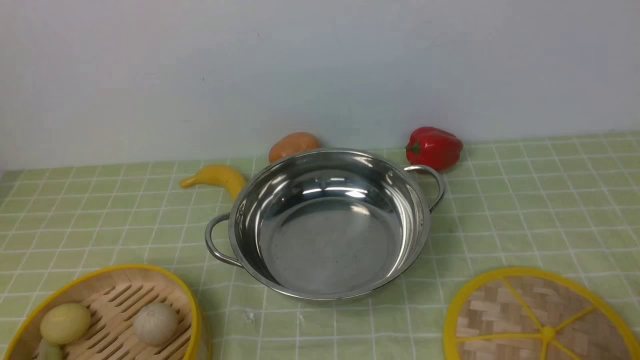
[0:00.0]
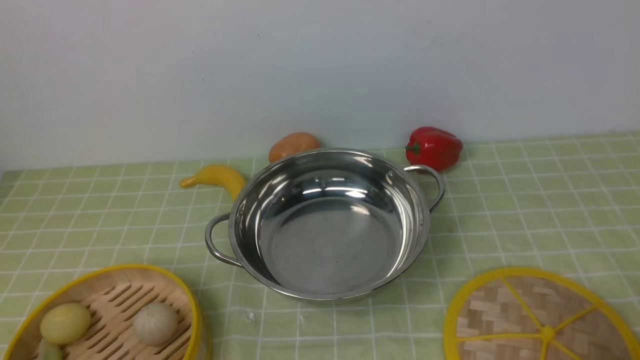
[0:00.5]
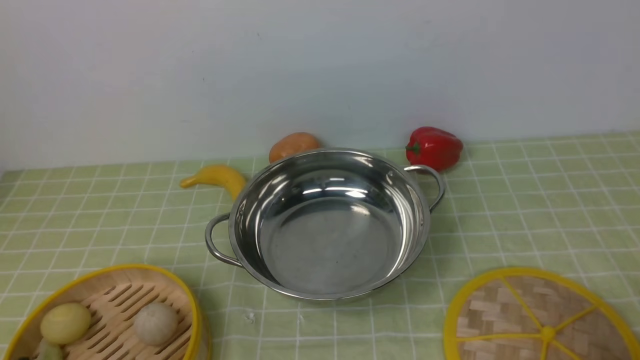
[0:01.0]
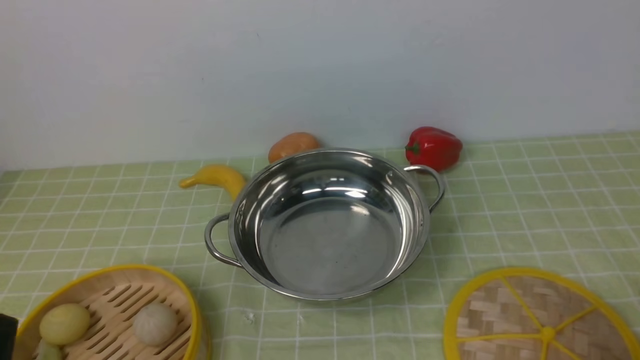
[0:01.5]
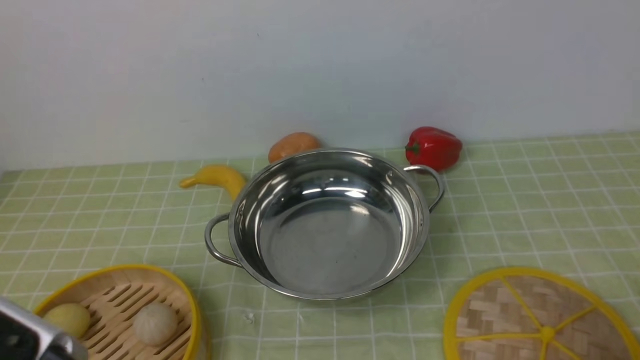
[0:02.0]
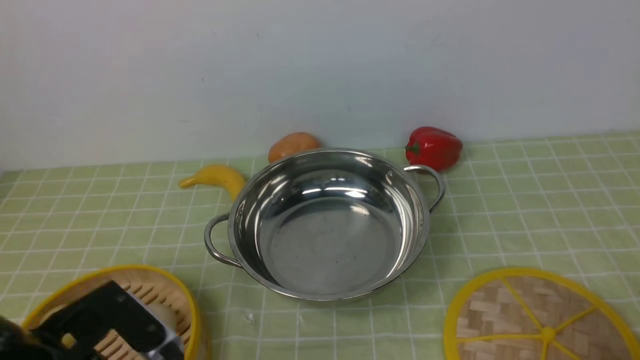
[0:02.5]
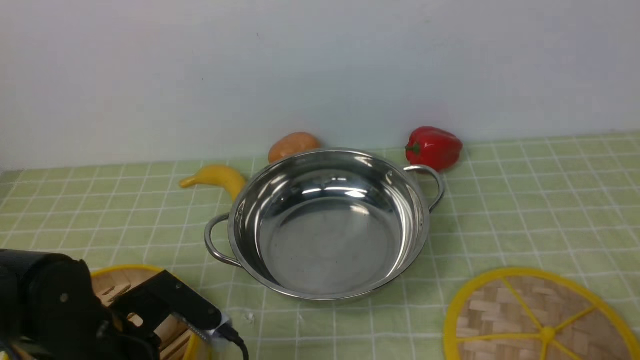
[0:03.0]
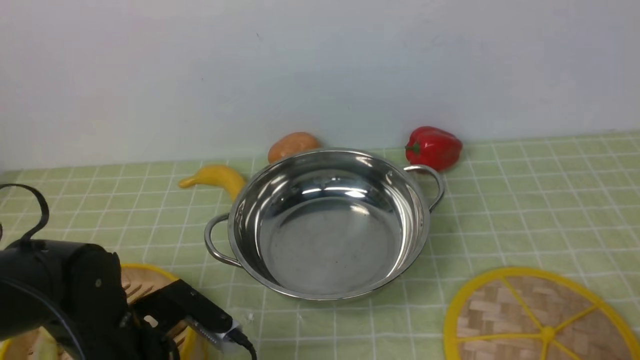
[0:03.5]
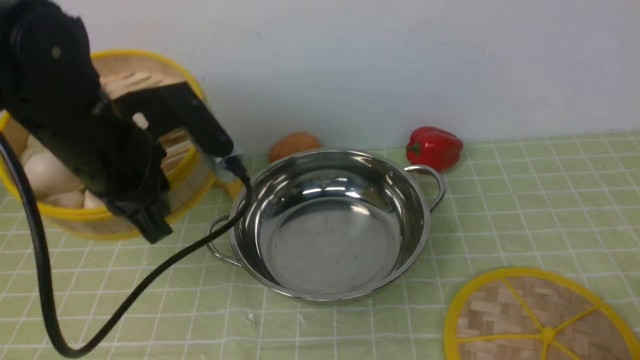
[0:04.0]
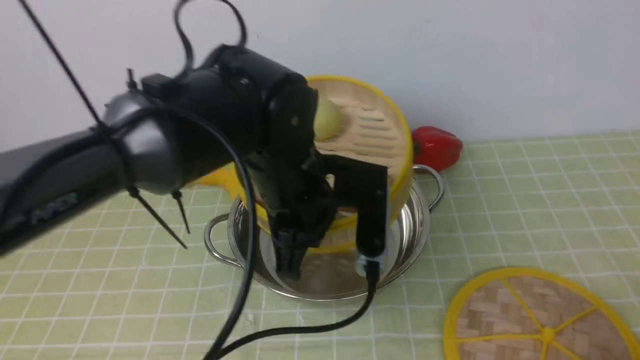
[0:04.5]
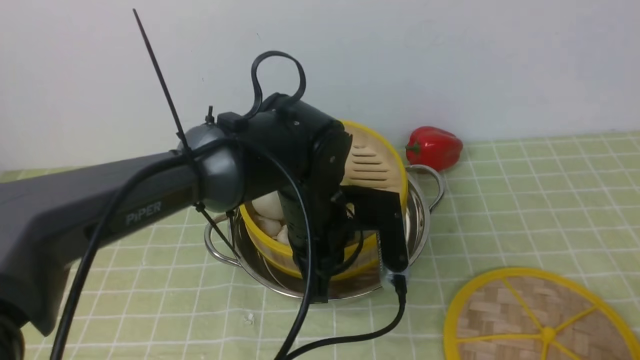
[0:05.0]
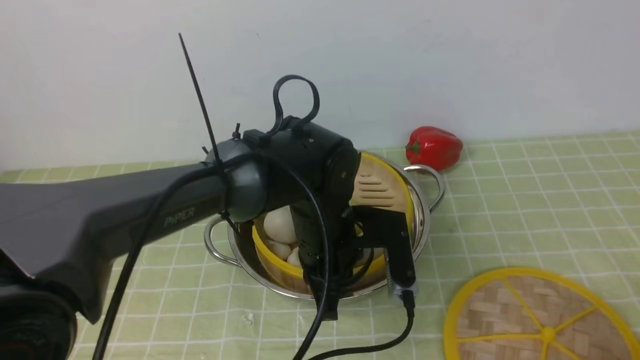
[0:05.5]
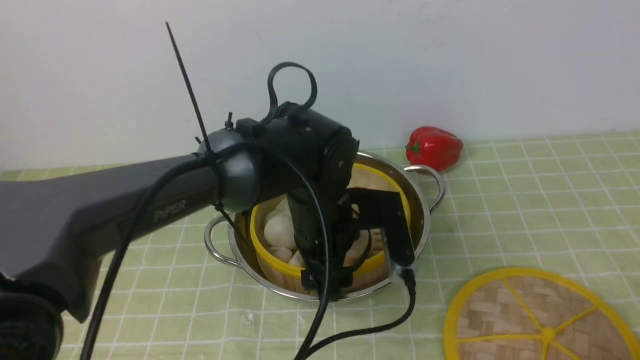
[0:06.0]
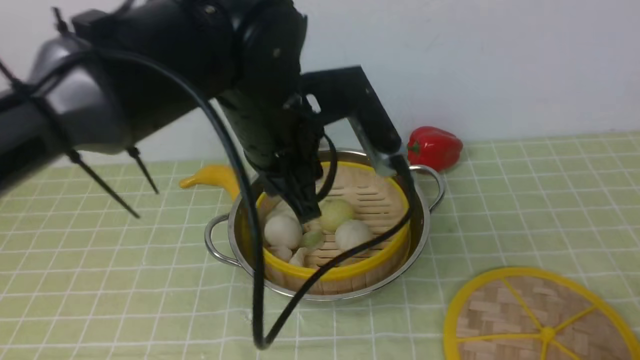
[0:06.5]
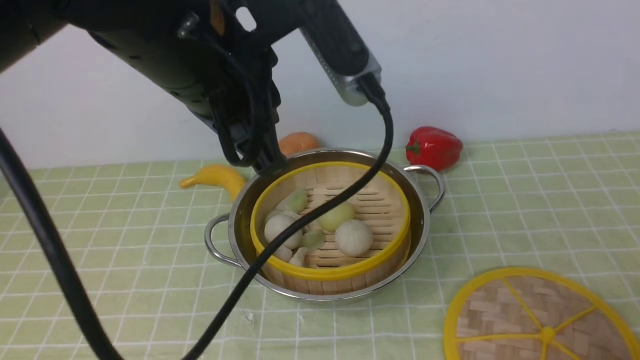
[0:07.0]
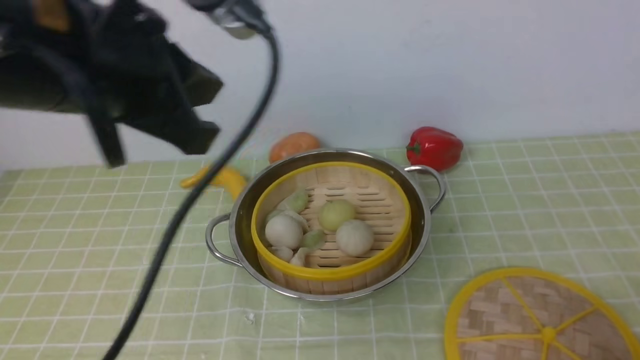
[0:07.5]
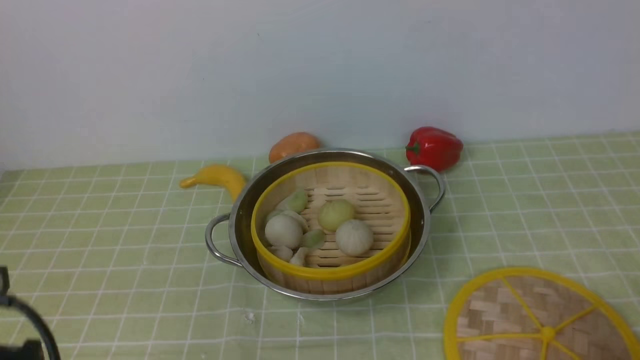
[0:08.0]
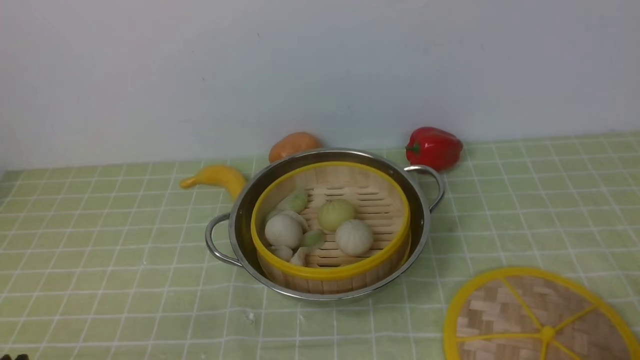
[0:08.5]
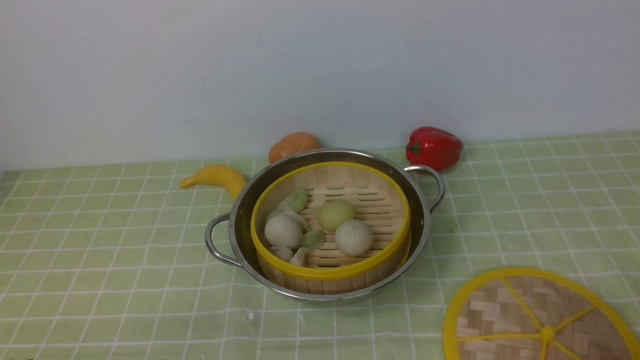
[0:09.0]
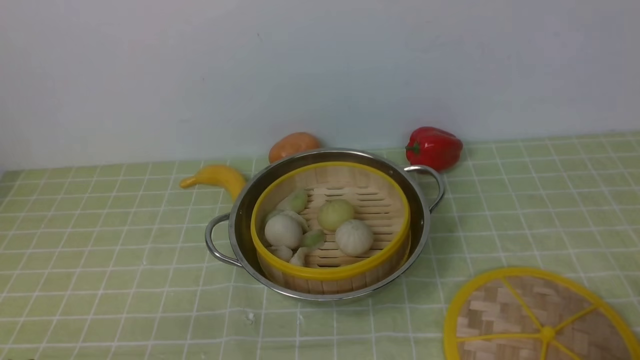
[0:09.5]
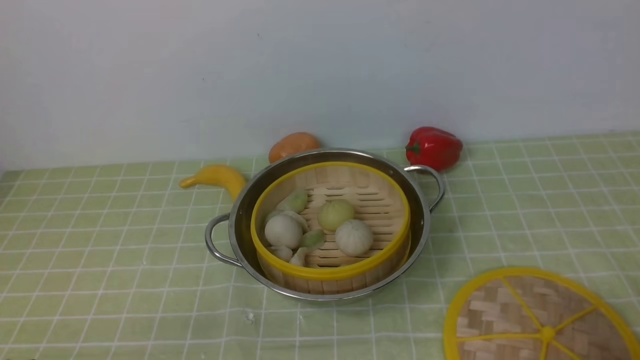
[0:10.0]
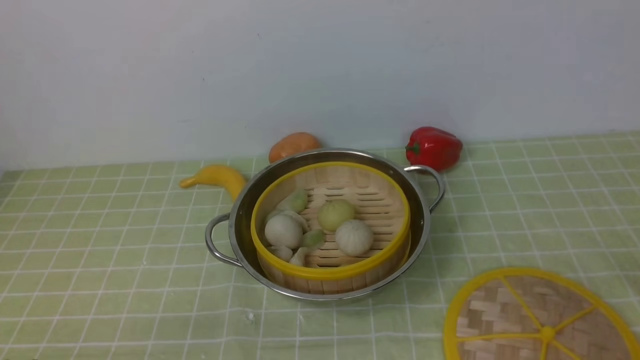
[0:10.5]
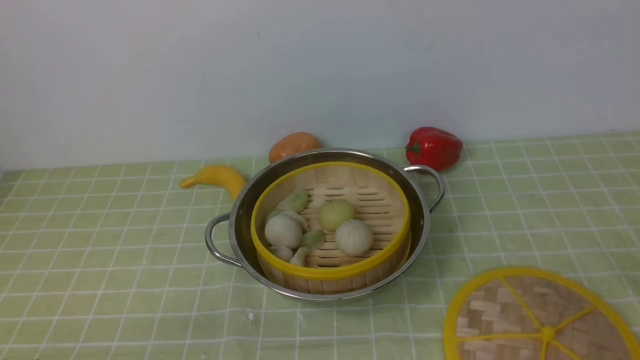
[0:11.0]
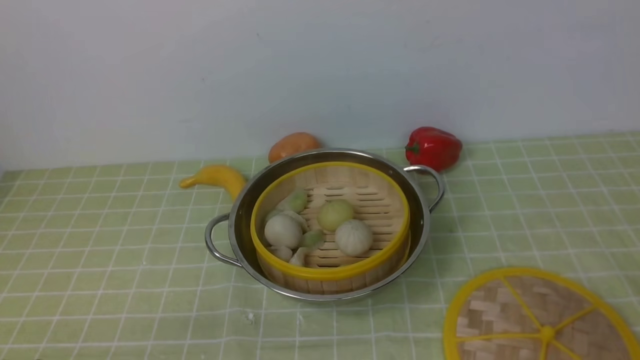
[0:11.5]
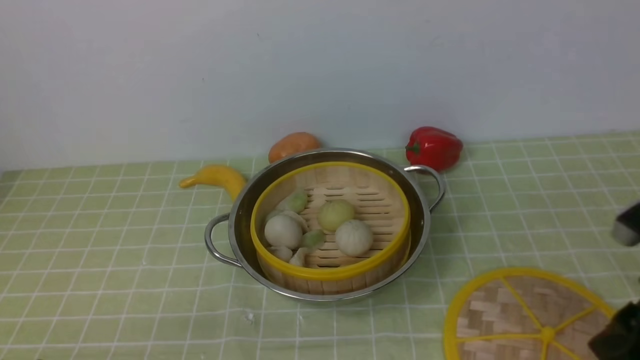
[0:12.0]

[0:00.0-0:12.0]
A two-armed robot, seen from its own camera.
Task of the whole recording: place the steamer in the pot on the green tablecloth, and put the lid on the steamer.
Step, 0:00.0 to 0:04.0: use the left arm to lift the steamer closest to it.
Step, 0:04.5 to 0:06.5: use the left arm to put the steamer into the iron steamer pot in the middle.
0:00.0 to 0:02.0: The left gripper travels upward by approximately 10 cm.
0:02.0 to 0:04.0: The left gripper is displaced forward by approximately 20 cm, and closes its fingers.
0:04.0 to 0:06.0: The left gripper goes some 15 cm to the right and downward, and opens.
0:06.0 to 0:08.0: The left gripper shifts approximately 35 cm to the left and backward, and closes up.
0:08.0 to 0:10.0: The left gripper shifts approximately 10 cm downward.
0:10.0 to 0:12.0: The right gripper travels forward and upward by some 15 cm.

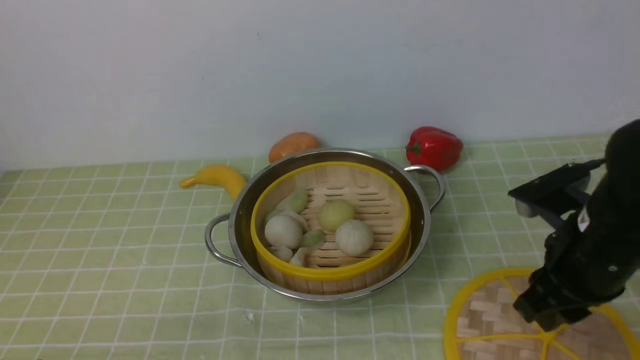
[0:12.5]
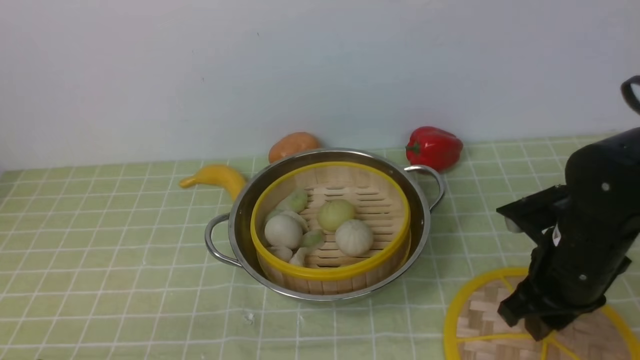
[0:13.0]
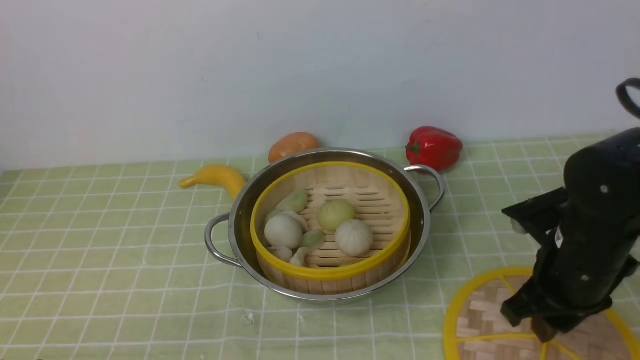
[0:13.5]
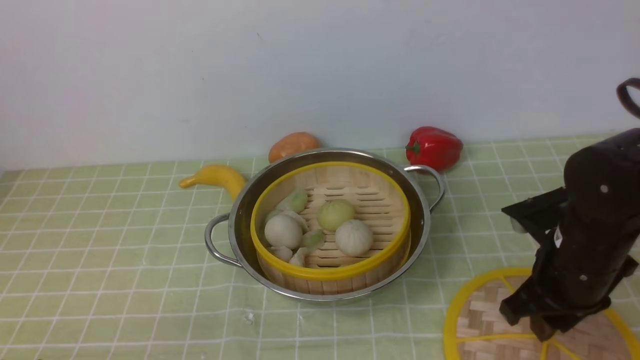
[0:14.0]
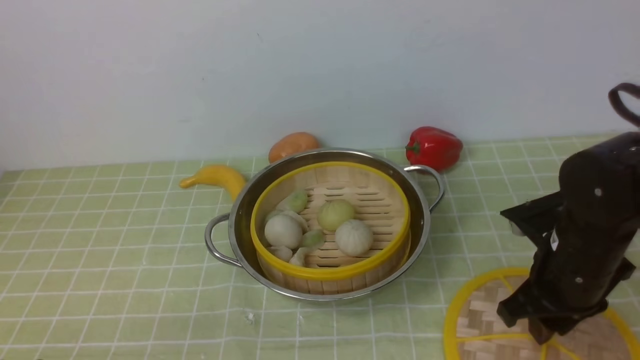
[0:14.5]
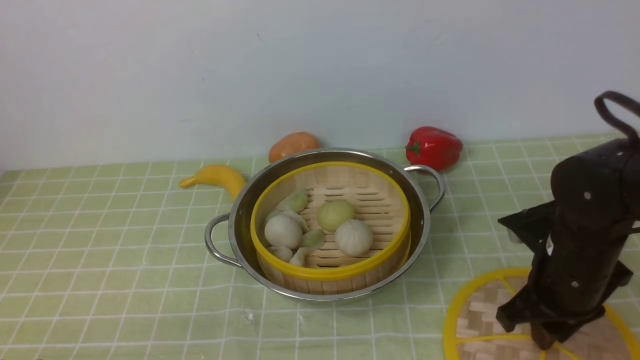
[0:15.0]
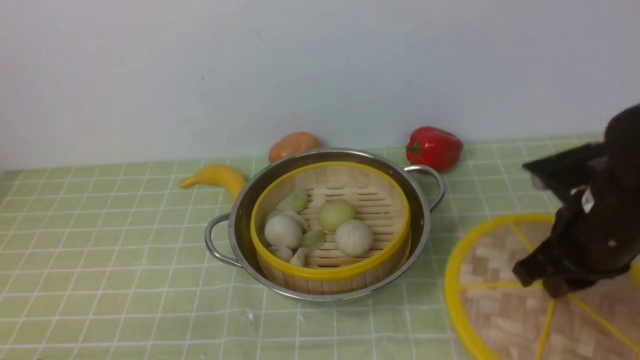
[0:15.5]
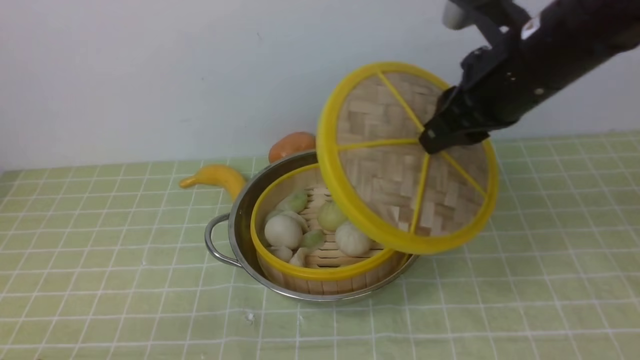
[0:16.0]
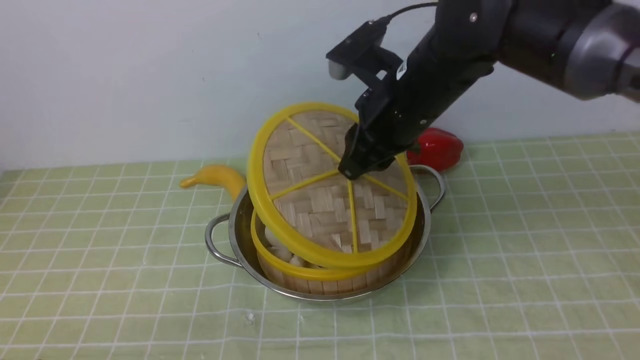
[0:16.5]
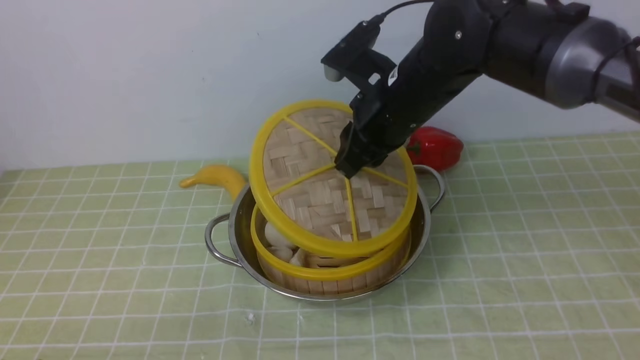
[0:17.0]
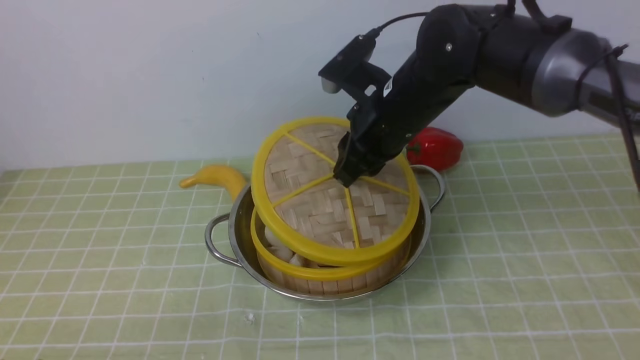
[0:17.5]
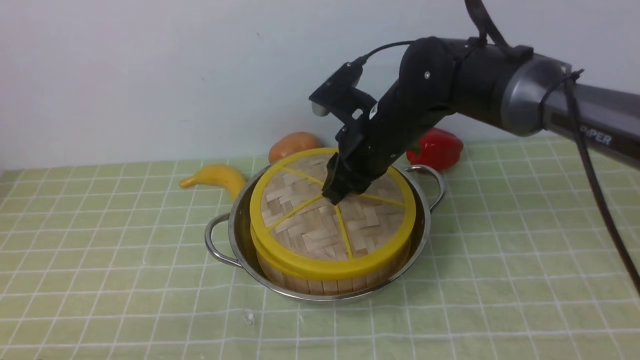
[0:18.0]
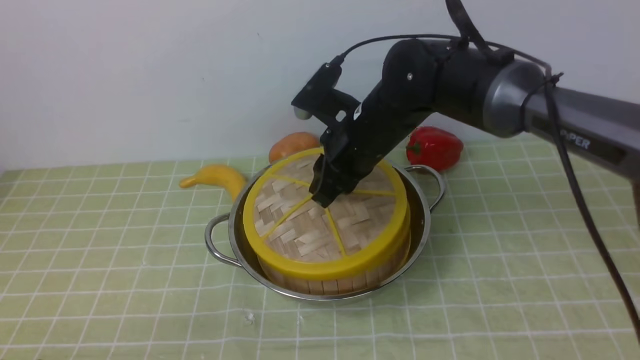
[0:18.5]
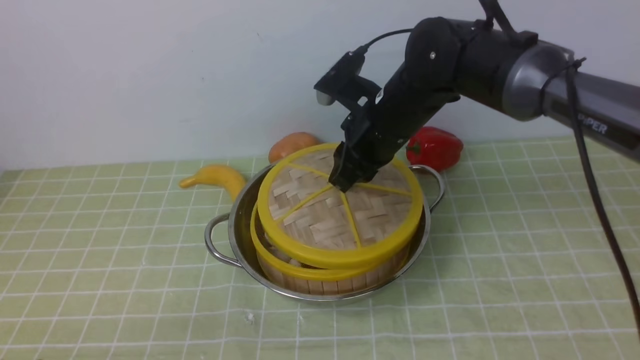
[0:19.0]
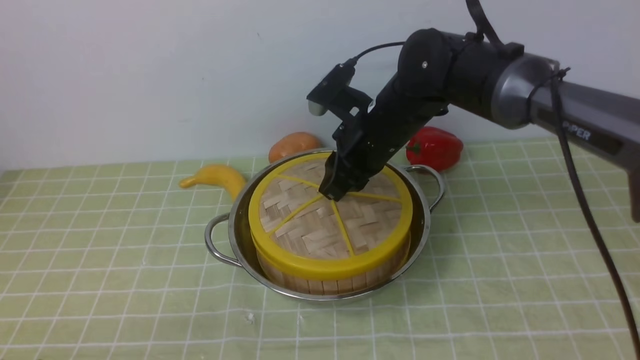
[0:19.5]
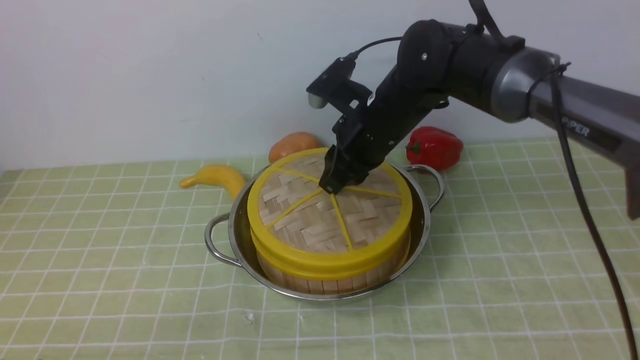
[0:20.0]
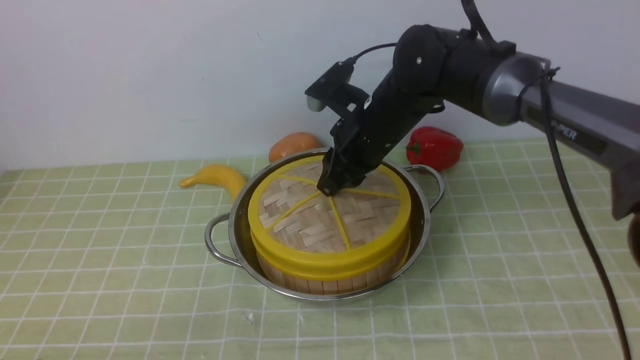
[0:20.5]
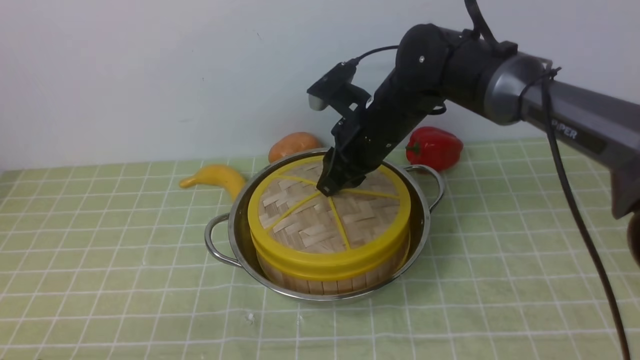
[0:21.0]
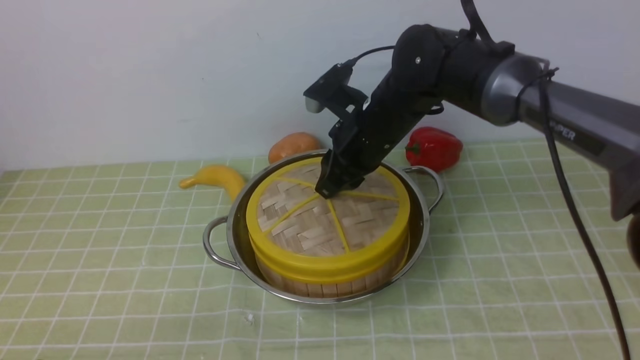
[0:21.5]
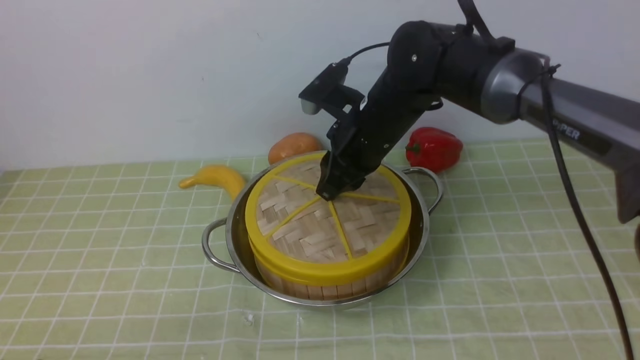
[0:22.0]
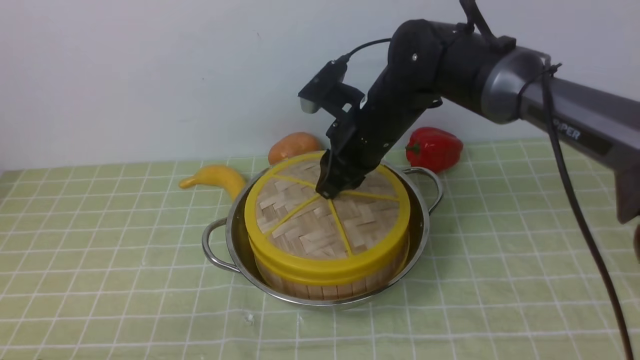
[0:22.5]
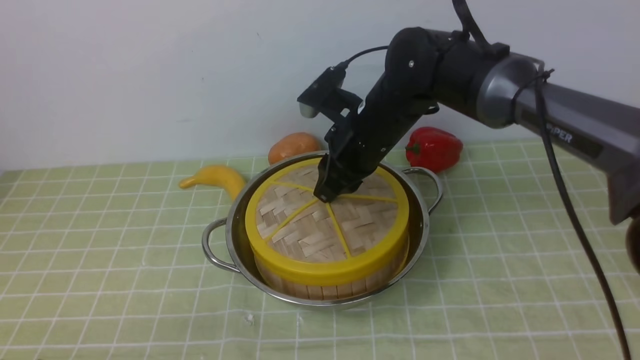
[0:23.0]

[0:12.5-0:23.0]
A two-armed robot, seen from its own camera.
Task of the whole recording: place the steamer in the pot on the green tablecloth, and put the lid on the steamer.
Step, 0:12.5 to 0:15.5: use the right arm to lift the lid of the steamer.
0:12.5 to 0:14.5: The grippers stay close to where they were, moving slightly.
0:14.5 to 0:16.5: The right gripper shifts about 20 cm to the left, upward and forward, and closes its fingers.
0:16.5 to 0:19.0: The right gripper shifts some 5 cm downward.
0:19.0 to 0:23.0: There are only small adjustments of the grippers.
